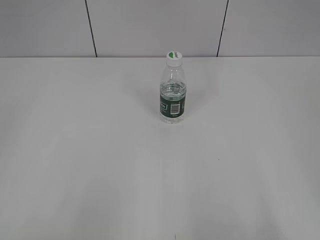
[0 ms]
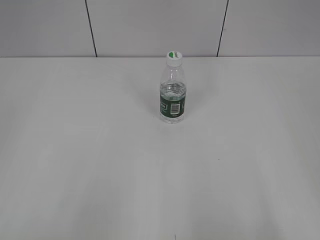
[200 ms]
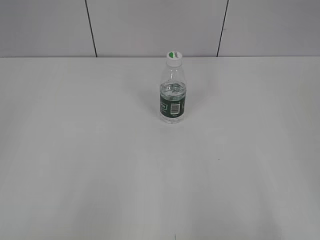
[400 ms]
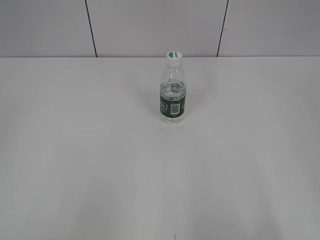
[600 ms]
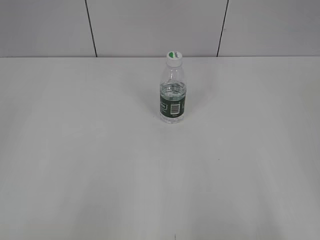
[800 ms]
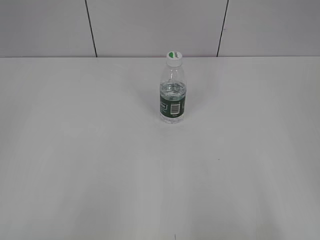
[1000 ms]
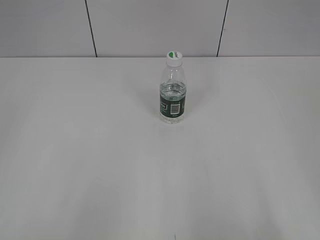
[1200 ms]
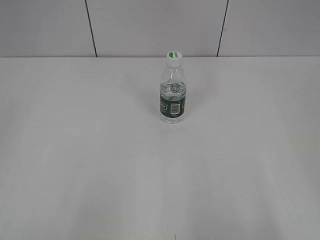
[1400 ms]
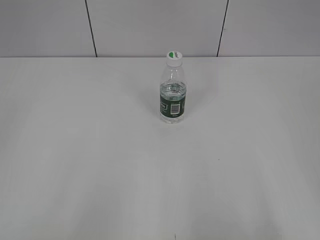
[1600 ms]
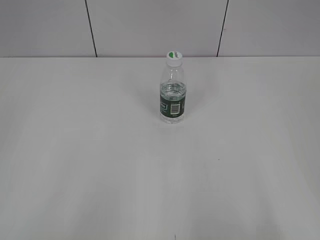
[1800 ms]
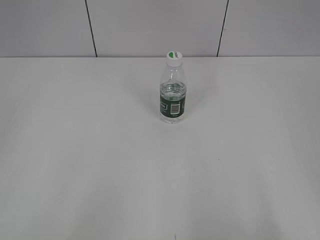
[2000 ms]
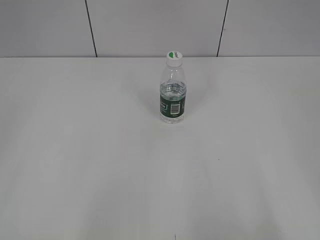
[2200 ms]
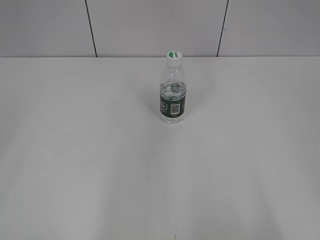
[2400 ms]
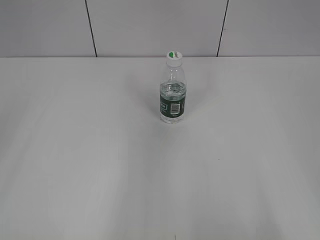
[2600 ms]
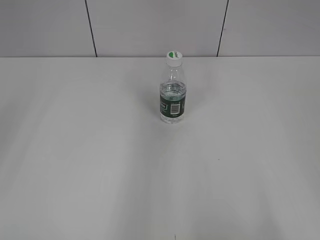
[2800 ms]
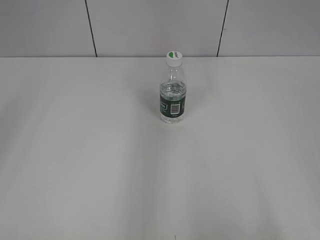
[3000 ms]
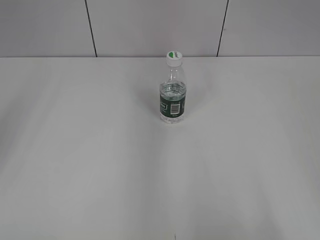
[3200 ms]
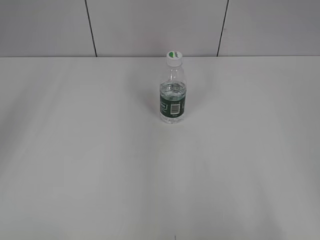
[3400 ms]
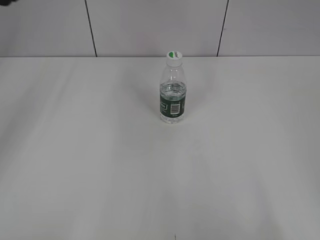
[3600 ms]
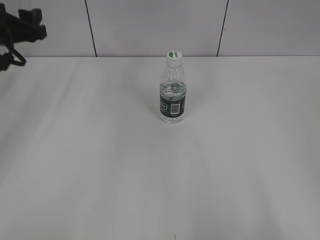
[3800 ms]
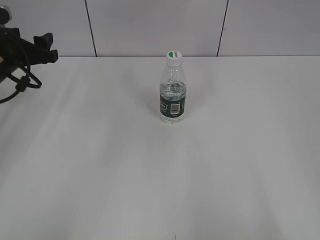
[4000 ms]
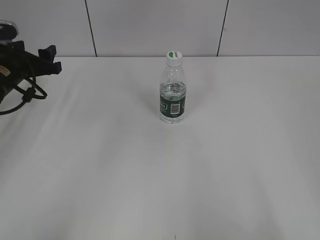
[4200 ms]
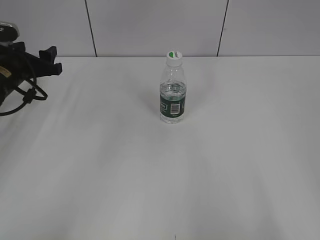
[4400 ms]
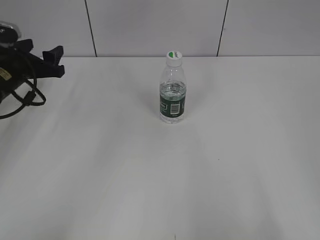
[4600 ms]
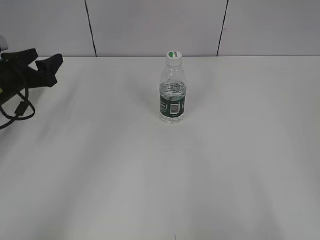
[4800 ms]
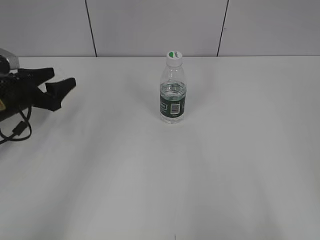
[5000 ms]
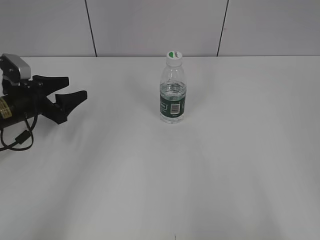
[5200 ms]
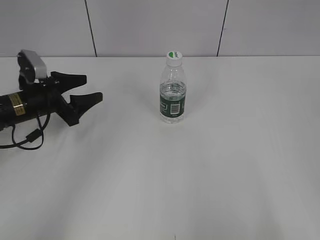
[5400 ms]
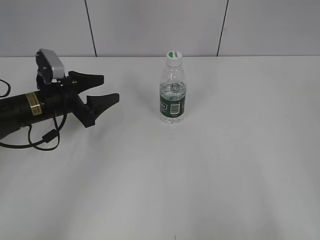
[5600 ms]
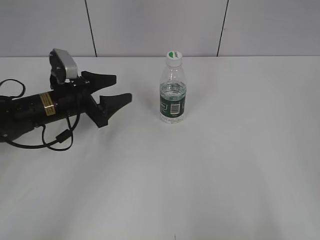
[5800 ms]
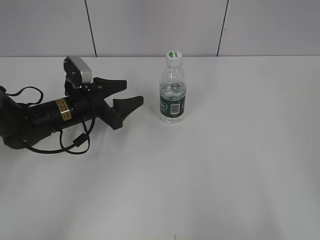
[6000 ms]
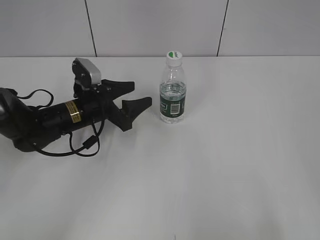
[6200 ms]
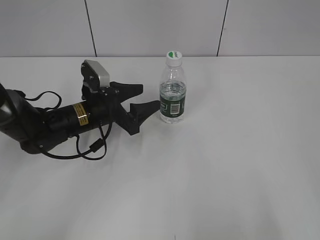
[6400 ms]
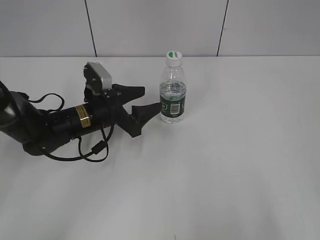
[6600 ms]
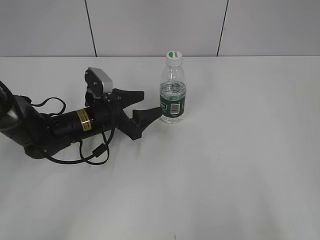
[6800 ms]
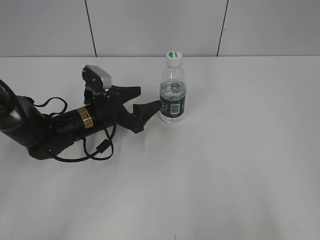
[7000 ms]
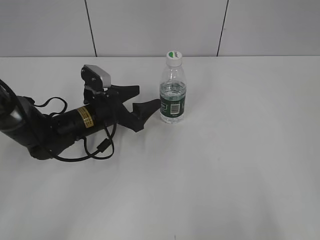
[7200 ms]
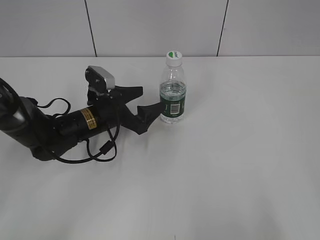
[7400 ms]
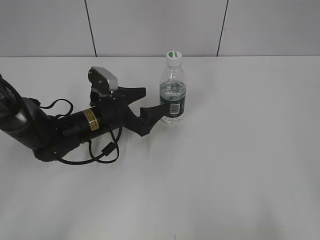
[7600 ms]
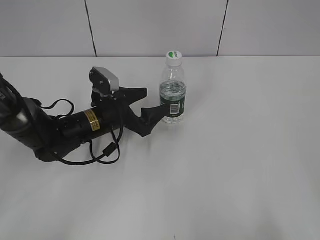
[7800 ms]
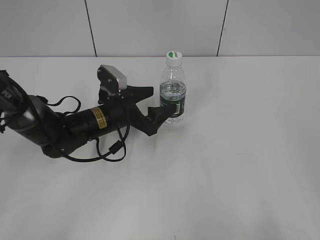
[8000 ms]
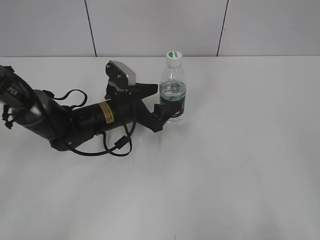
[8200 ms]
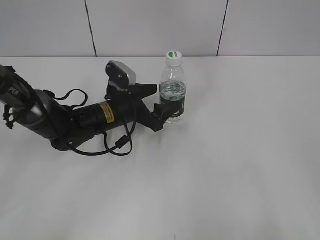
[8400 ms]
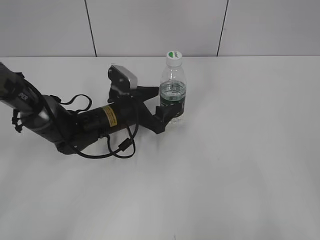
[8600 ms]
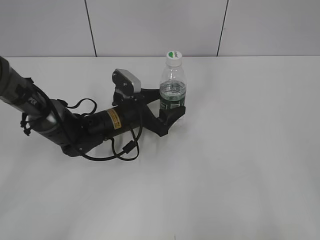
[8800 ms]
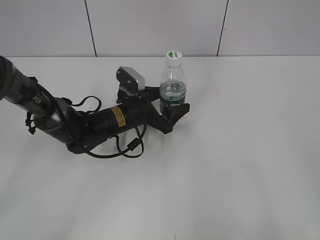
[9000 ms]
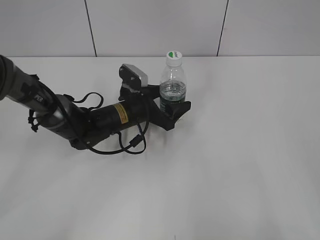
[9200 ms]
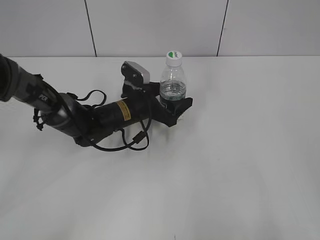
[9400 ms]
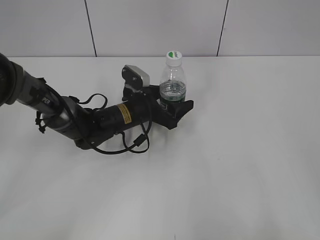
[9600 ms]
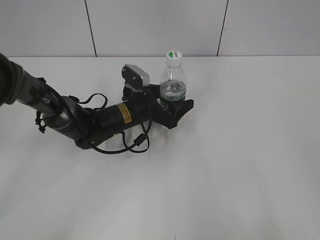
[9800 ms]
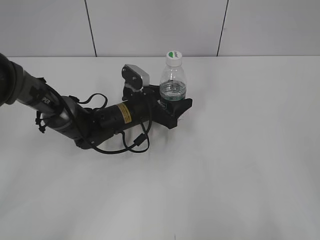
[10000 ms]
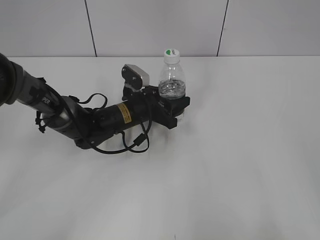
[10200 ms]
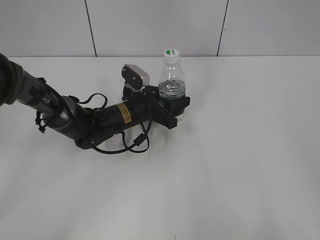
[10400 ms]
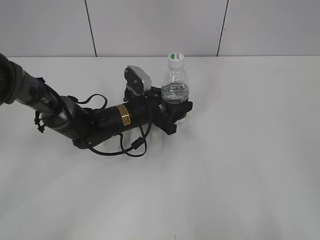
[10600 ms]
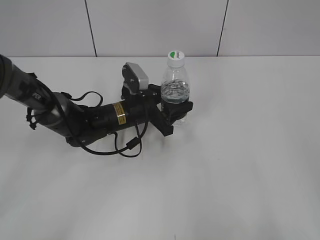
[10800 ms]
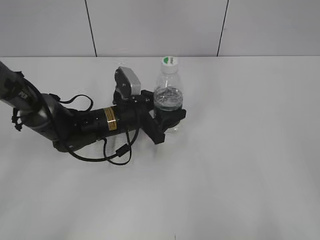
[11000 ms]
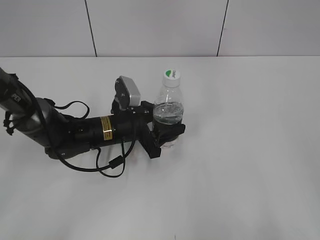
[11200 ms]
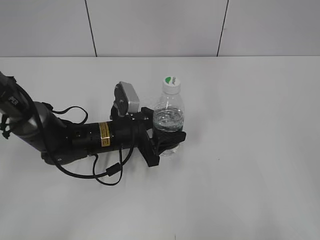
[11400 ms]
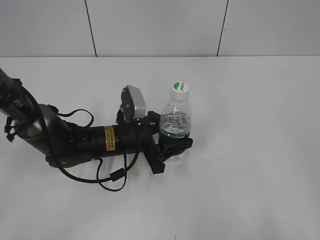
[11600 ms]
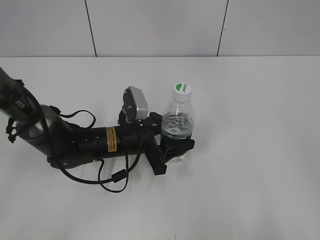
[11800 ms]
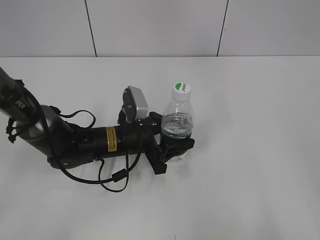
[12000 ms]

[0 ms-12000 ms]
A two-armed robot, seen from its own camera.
Step, 0 ms to 10200 ms: Grasp the bottle and move it to the center of the table with the left gripper.
3000 ms to 4400 ms: The left gripper moves downward and forward, roughly 35 cm.
4400 ms to 6000 ms: The left gripper moves to the right and downward, approximately 15 cm.
6000 ms to 7600 ms: The left gripper goes about 5 cm to the right.
7600 ms to 9000 ms: The left gripper shifts by about 5 cm.
9000 ms to 10400 ms: The left gripper closes.
10400 ms to 12000 ms: The left gripper moves backward, about 10 cm.

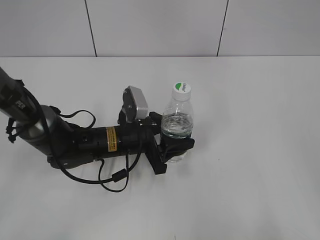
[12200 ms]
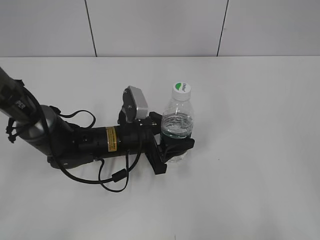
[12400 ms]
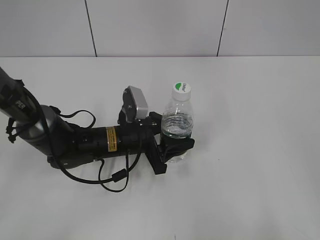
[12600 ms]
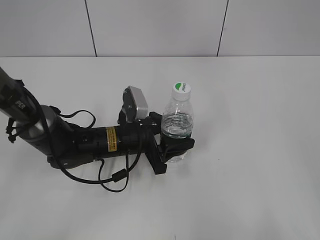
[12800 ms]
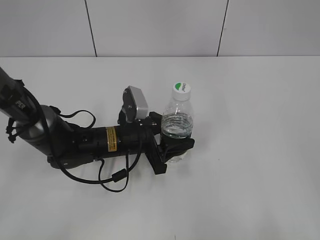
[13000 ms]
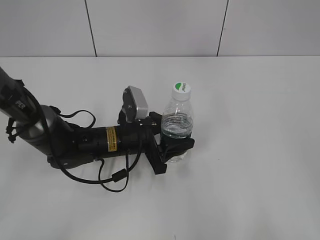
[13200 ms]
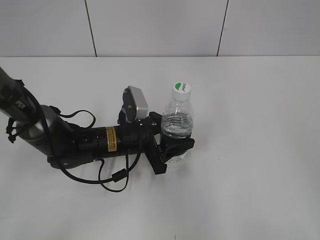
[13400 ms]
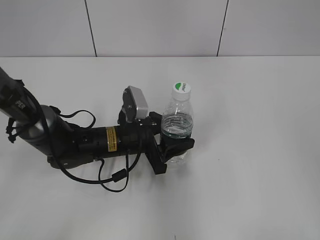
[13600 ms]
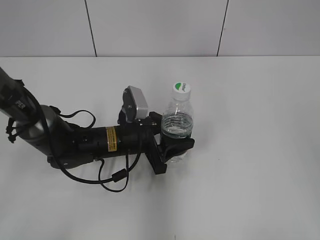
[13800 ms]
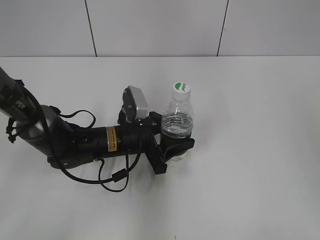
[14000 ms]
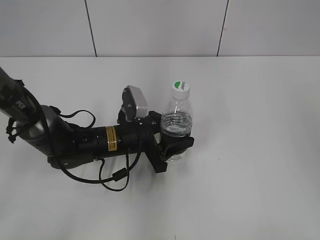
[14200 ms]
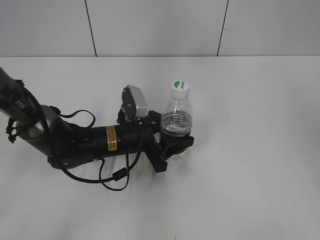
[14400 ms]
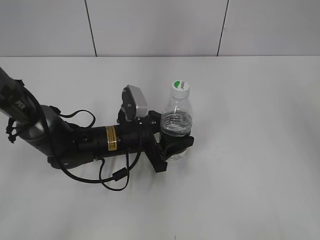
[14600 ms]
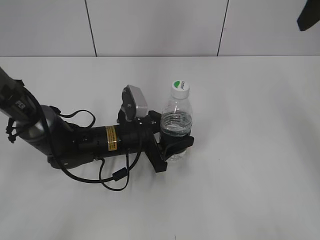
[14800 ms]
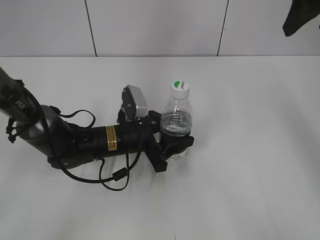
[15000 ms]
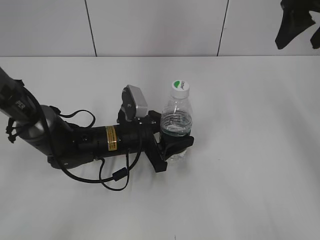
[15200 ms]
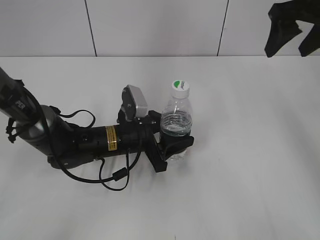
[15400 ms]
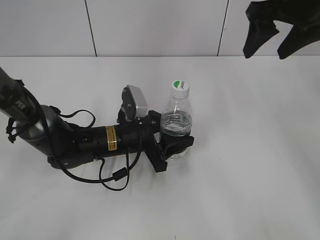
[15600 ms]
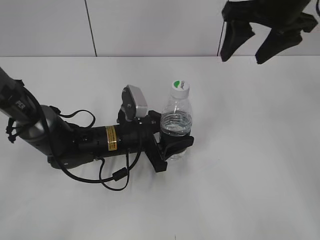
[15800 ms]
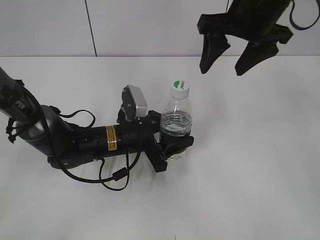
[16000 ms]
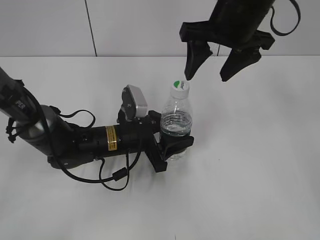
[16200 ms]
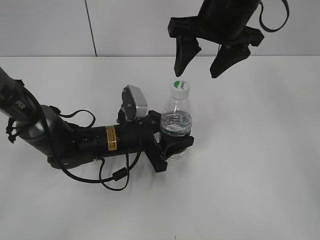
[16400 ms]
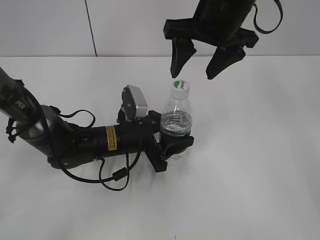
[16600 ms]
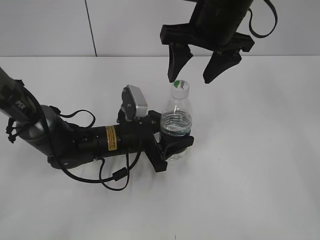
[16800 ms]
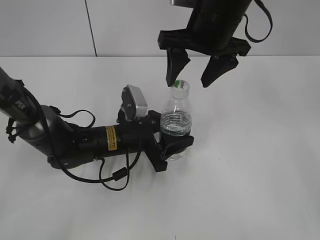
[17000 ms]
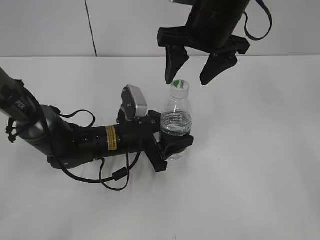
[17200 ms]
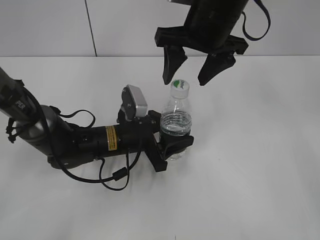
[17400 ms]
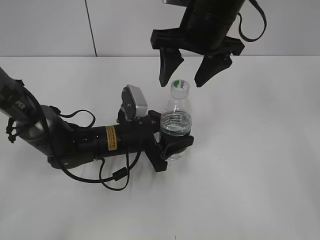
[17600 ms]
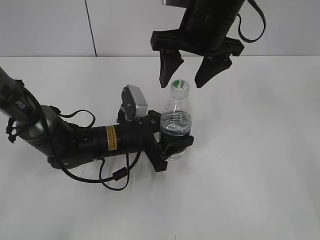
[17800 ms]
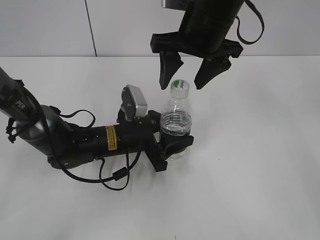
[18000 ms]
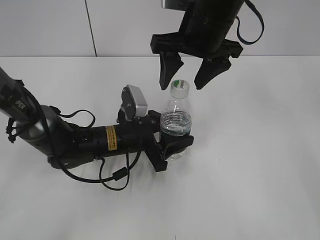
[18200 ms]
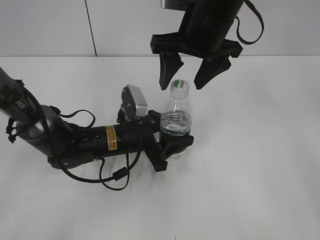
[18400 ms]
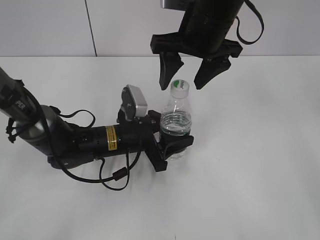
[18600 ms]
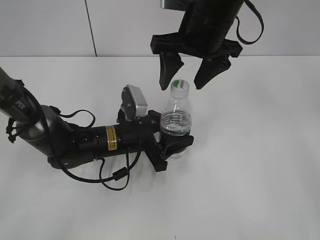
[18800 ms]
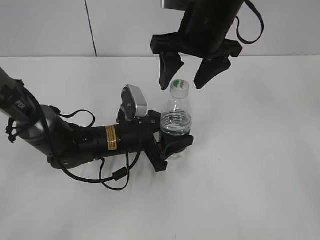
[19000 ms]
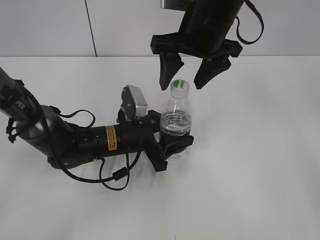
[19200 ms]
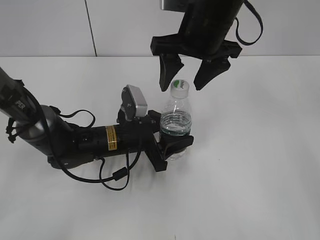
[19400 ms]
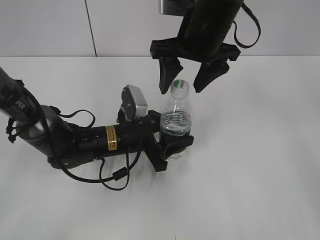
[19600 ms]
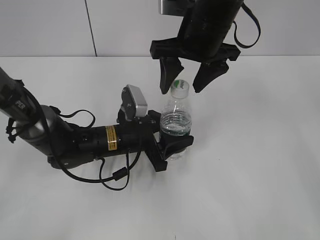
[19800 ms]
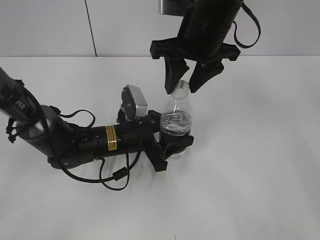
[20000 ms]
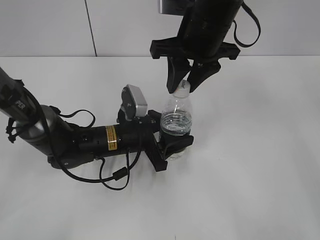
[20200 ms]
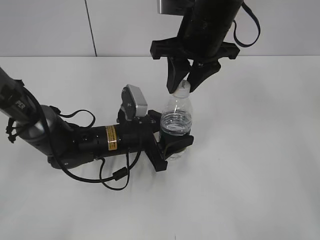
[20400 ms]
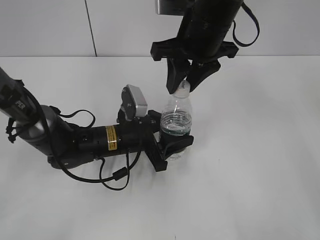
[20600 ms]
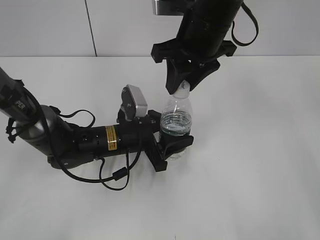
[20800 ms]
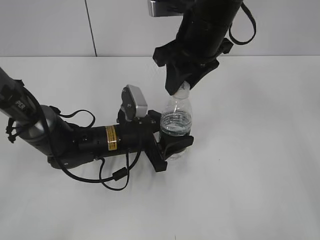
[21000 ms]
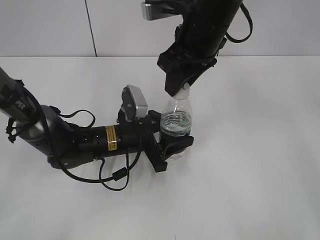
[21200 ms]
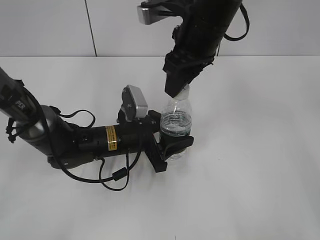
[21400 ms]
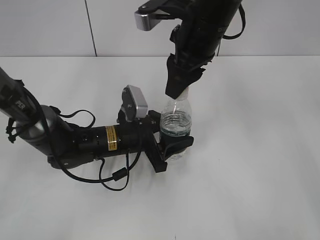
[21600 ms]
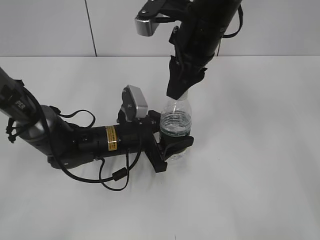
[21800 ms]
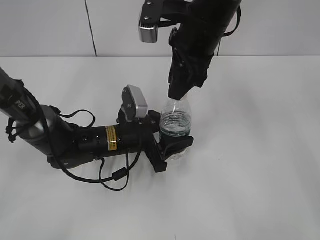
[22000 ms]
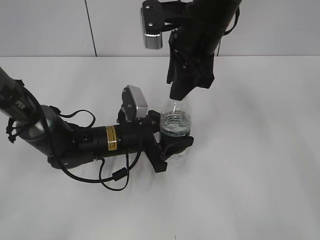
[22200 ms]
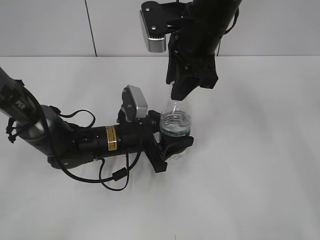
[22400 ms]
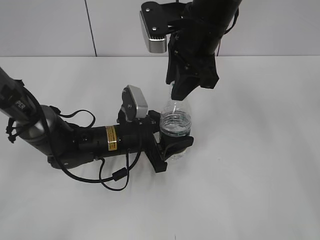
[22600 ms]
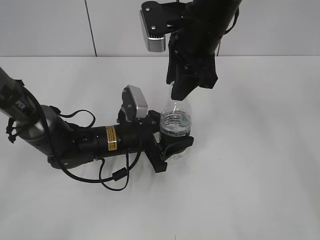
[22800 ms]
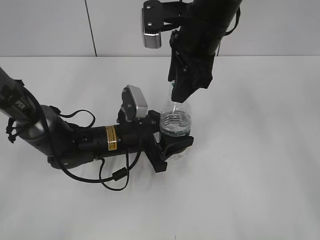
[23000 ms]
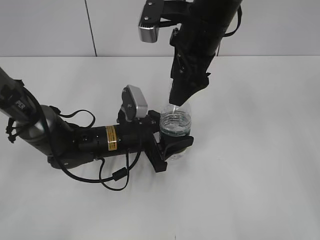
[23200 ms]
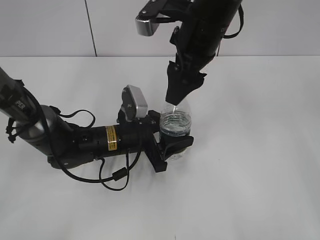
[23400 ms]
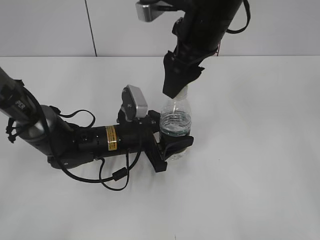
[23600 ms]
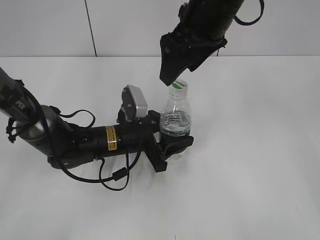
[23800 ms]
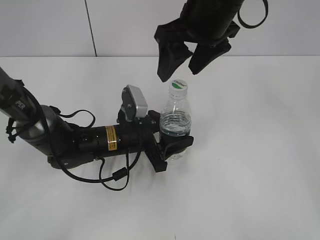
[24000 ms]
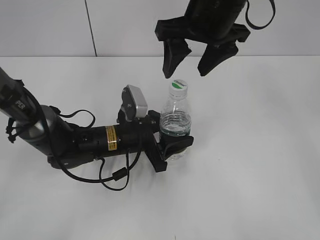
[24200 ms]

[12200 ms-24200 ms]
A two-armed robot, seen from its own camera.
12200 ms to 13800 ms: The right gripper moves forward and upward, roughly 15 cm.
13800 ms to 15200 ms: The right gripper shifts roughly 25 cm forward.
15200 ms to 16600 ms: The right gripper shifts some 15 cm to the left.
16600 ms to 18200 ms: The grippers move only a little.
18200 ms to 19800 ms: Neither gripper changes place.
19800 ms to 21200 ms: The right gripper closes up.
22600 ms to 24200 ms: The right gripper opens its fingers.
